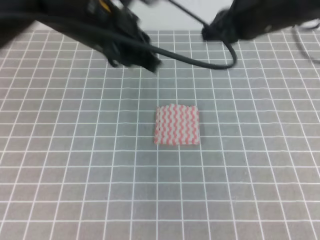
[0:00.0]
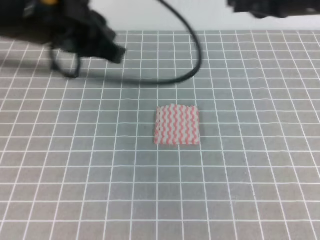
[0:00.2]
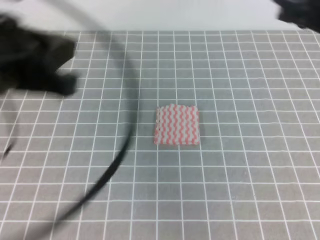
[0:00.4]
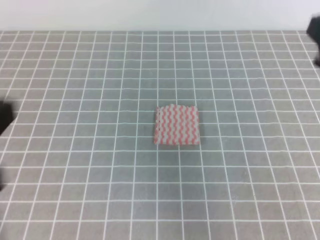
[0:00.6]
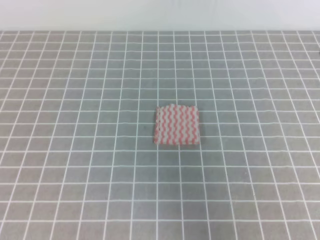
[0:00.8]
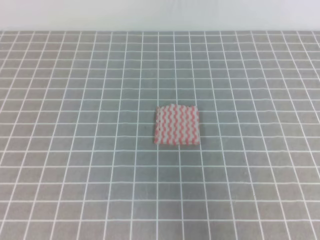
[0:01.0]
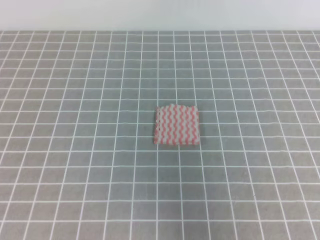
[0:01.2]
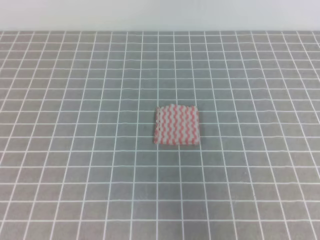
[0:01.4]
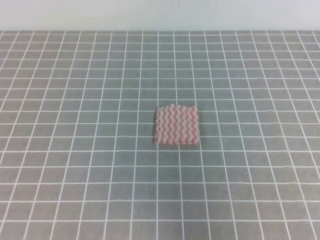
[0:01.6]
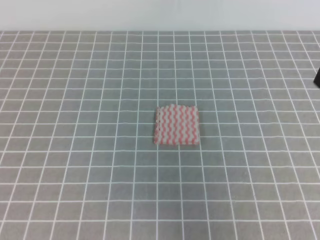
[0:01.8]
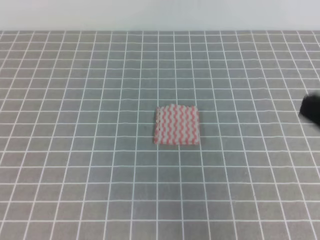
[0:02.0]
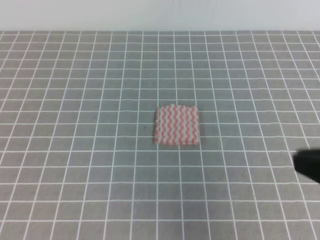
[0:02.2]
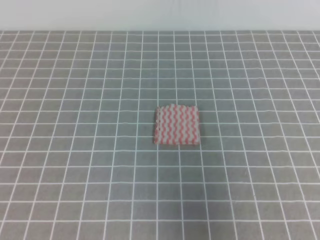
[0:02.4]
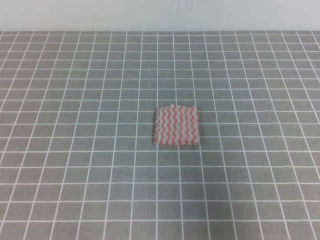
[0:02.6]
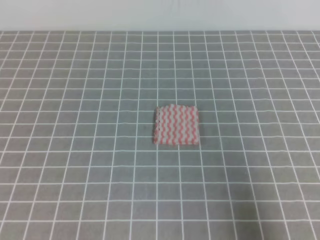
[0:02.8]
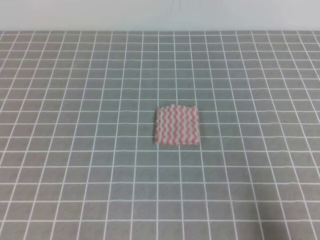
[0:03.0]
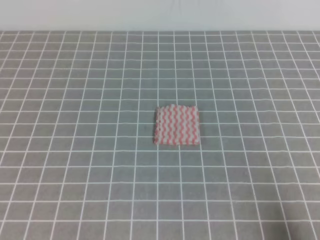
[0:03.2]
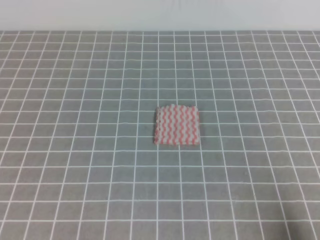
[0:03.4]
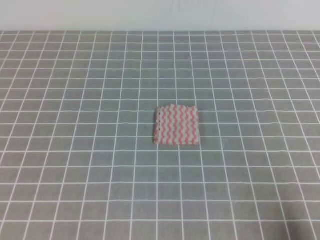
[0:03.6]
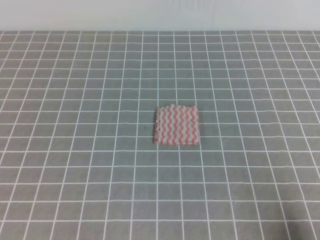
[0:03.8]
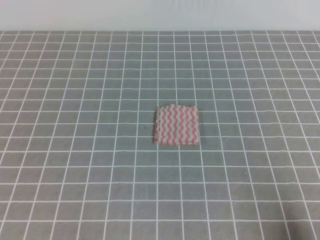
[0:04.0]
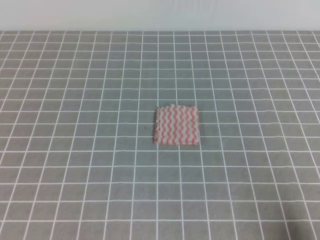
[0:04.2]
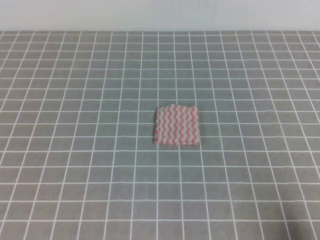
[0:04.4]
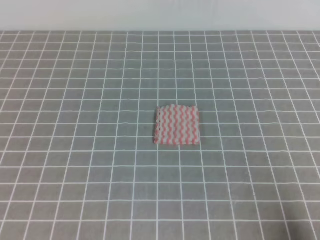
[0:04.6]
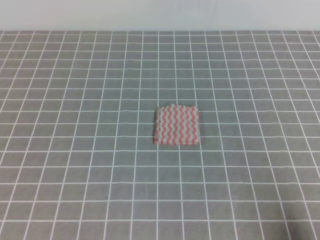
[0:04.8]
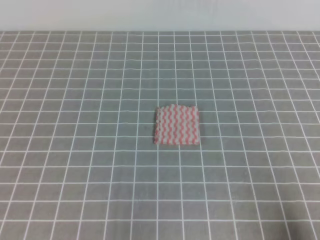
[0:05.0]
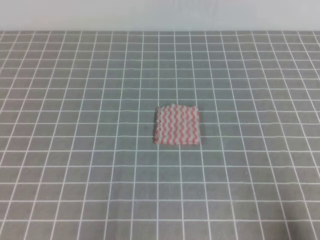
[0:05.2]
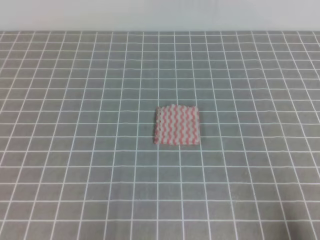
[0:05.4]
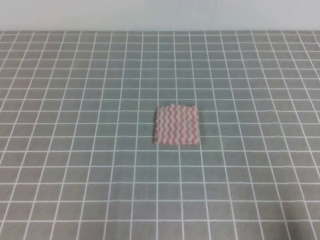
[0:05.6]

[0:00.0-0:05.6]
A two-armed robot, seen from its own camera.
Step, 0:00.0 to 0:05.6: Fold the towel.
0:00.0 to 0:01.4: The right gripper is displaced backward and to the right by some 25 cm. The left gripper travels backward and to the left by about 40 cm.
0:01.4 to 0:02.8: The right gripper travels downward, backward and to the right by roughly 15 cm.
0:02.8 to 0:04.2: The right gripper travels downward by approximately 10 cm.
